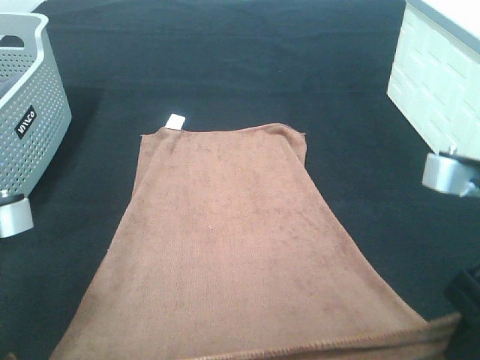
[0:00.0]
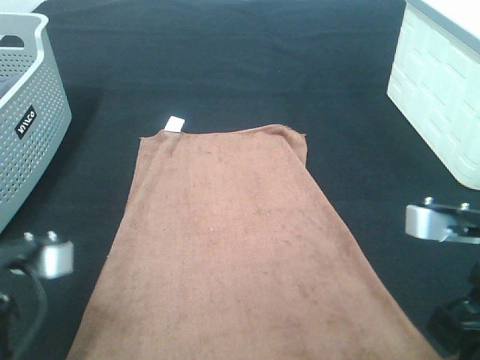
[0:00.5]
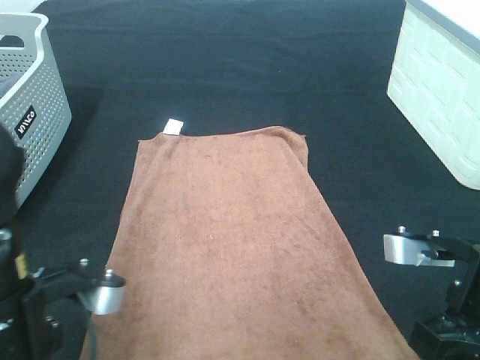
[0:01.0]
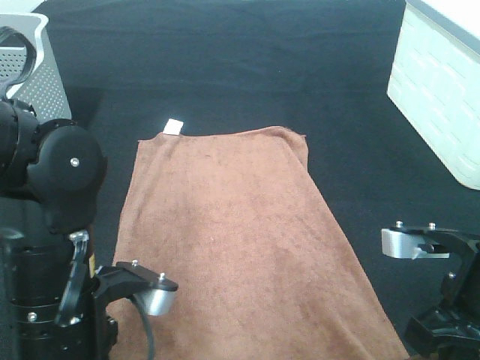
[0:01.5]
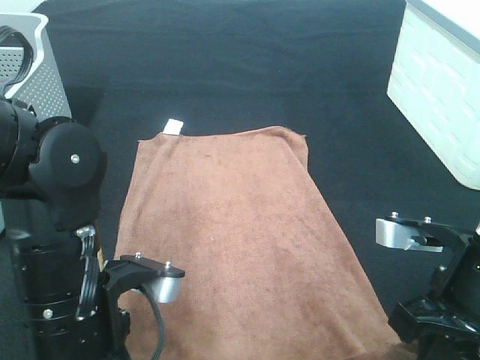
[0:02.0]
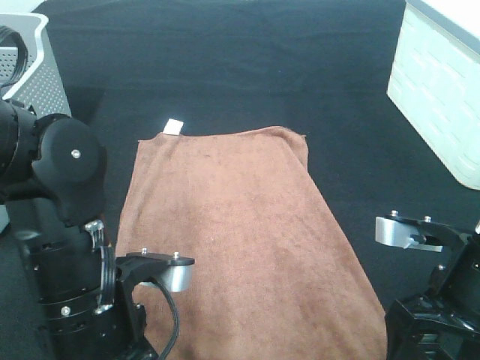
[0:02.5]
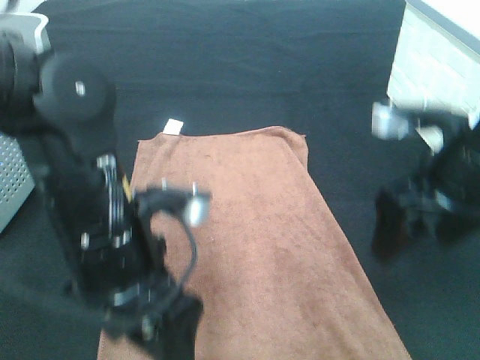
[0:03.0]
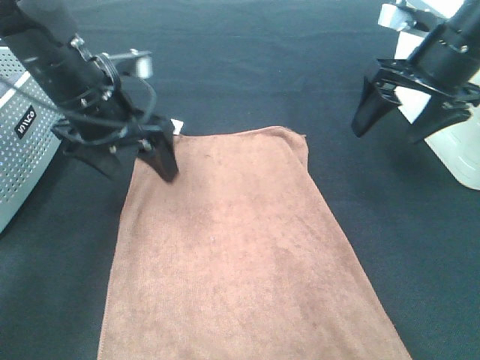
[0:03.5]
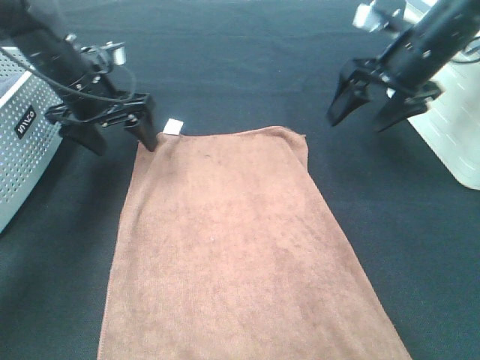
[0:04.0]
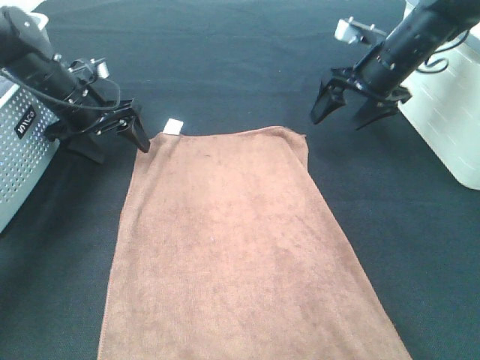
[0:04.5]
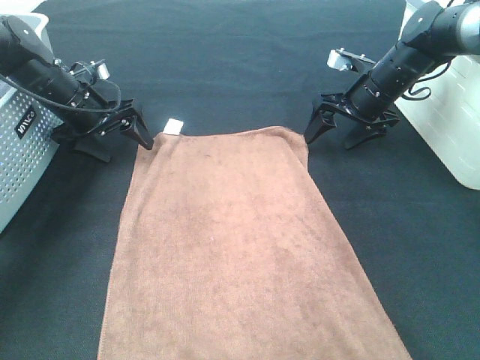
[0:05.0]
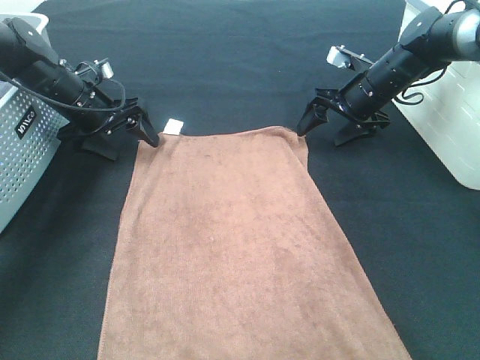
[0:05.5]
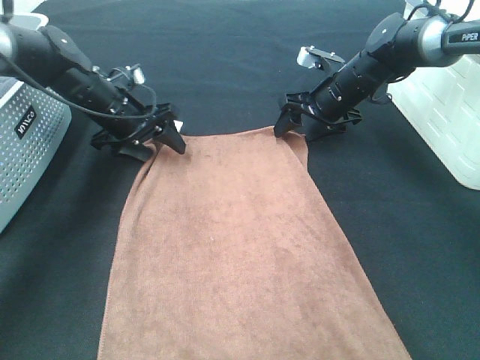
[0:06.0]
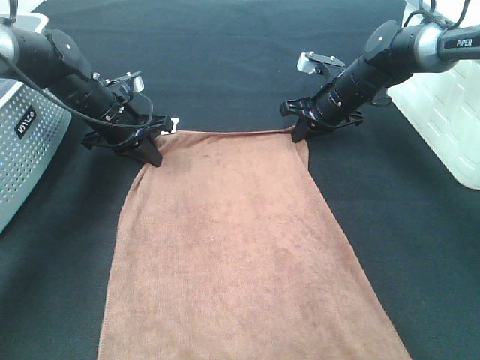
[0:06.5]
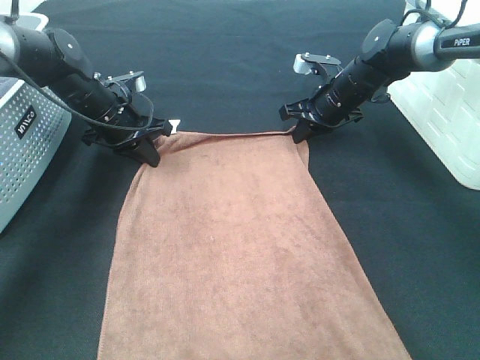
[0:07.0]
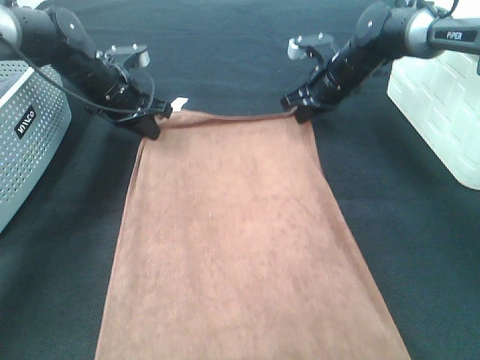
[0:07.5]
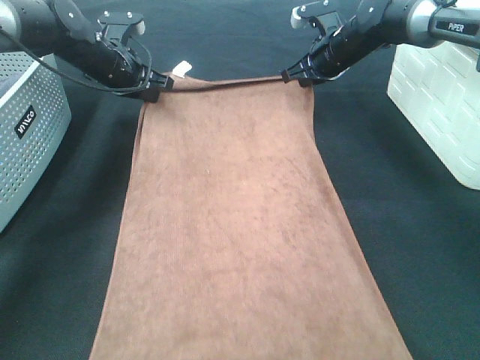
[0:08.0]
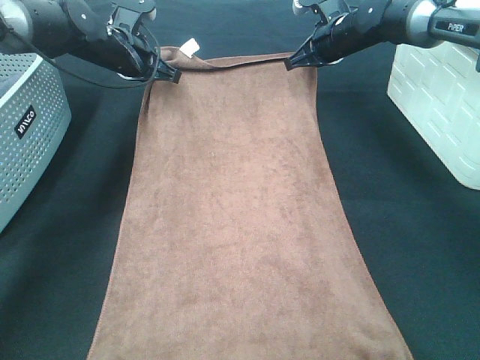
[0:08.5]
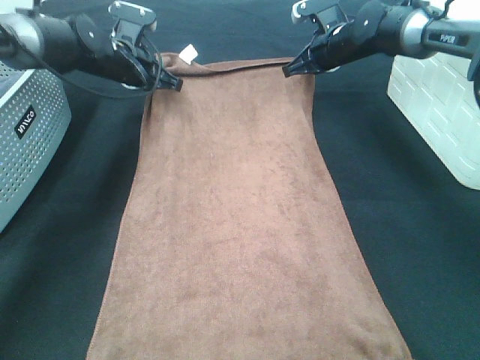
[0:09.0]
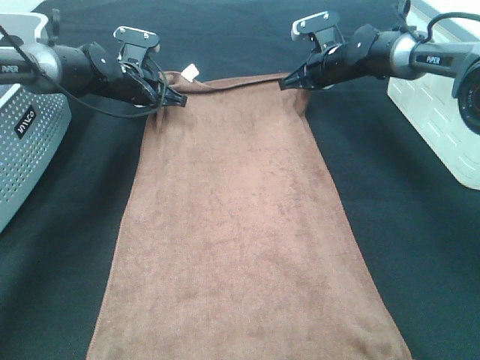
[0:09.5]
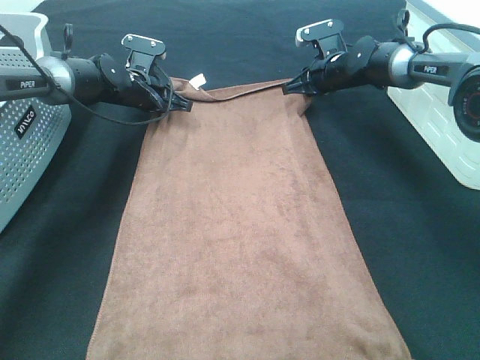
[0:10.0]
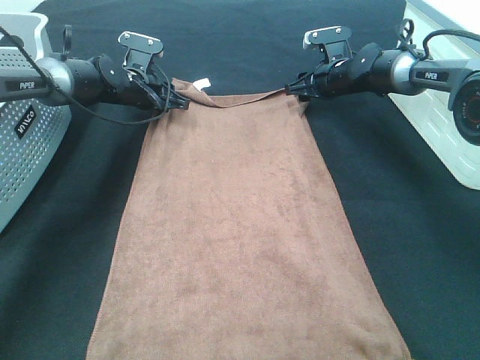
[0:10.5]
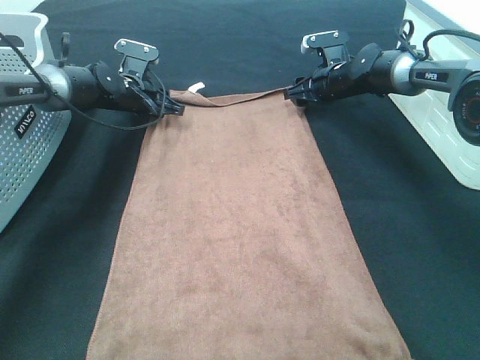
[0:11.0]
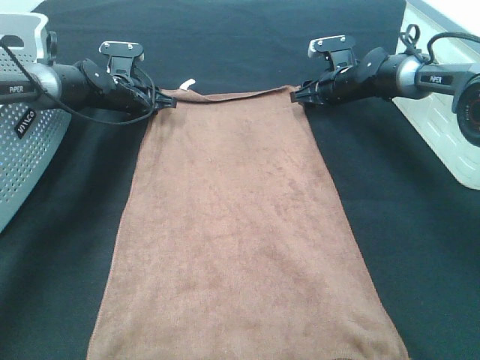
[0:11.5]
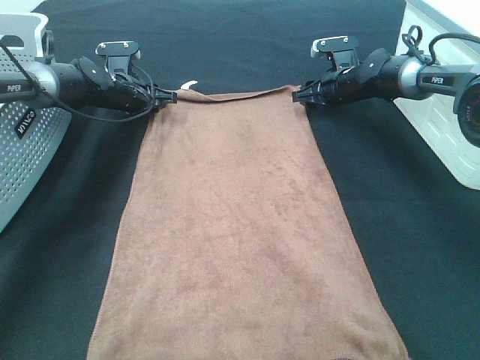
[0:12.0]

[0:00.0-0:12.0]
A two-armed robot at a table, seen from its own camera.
Task of the whole recording: Remove the towel and place it.
Step, 0:00.0 to 0:06.5: Left hand:adjust the brown towel.
Step, 0:00.0 to 0:06.5: Right hand:adjust the brown towel.
0:00.0 to 0:02.0: The right gripper goes roughly 10 cm downward, while the left gripper is displaced to the right and downward by approximately 10 cm.
0:02.0 to 0:04.0: The grippers both shift forward by some 25 cm. The left gripper opens its fingers, while the right gripper opens.
0:04.0 to 0:06.0: The left gripper goes about 5 cm downward. Meanwhile the right gripper heads downward, forward and to the left, covering approximately 15 cm.
0:06.0 to 0:08.0: The left gripper is displaced forward by about 5 cm, and closes. The right gripper is displaced upward and forward by some 10 cm, and closes its fingers.
0:08.0 to 0:10.0: The grippers both shift downward by approximately 5 cm.
0:10.0 to 0:12.0: The grippers move only a little.

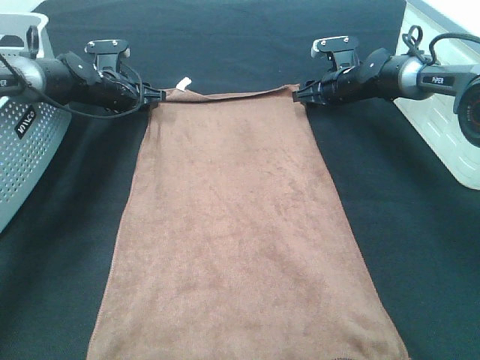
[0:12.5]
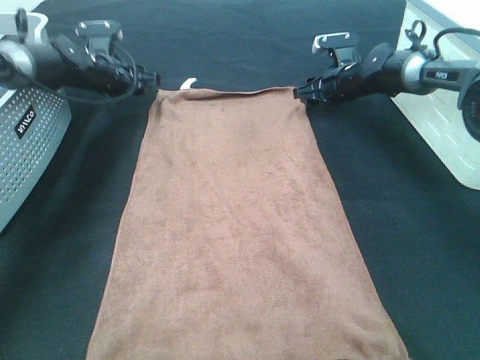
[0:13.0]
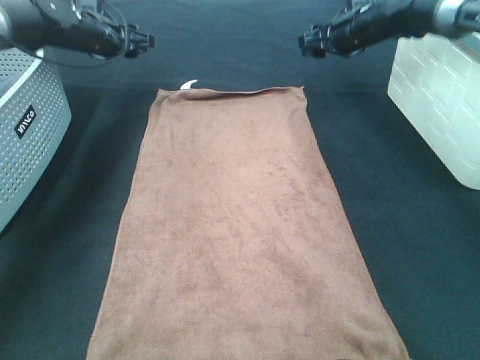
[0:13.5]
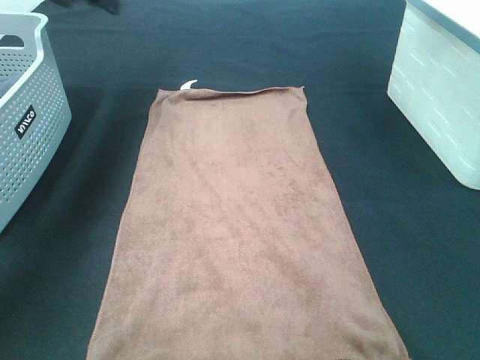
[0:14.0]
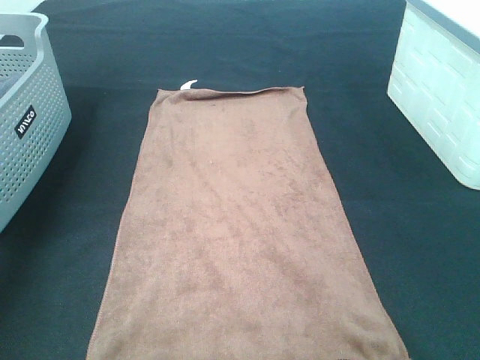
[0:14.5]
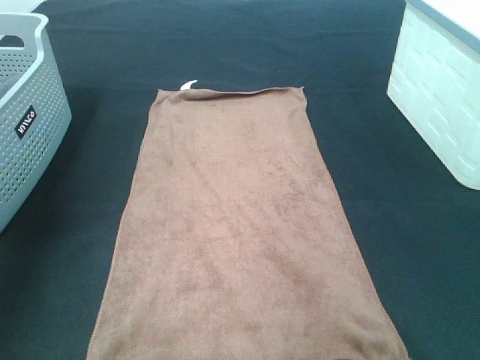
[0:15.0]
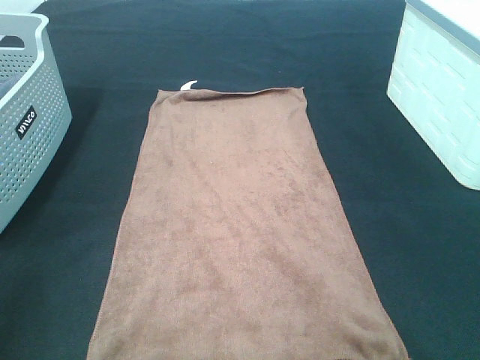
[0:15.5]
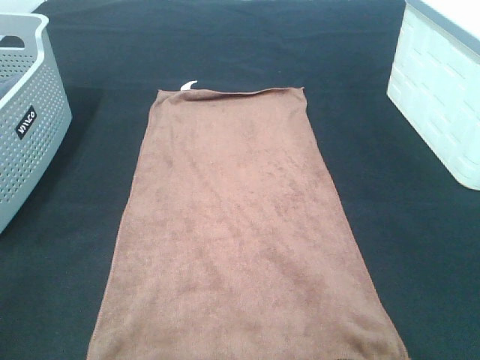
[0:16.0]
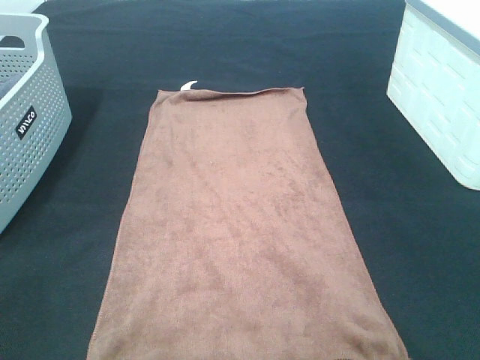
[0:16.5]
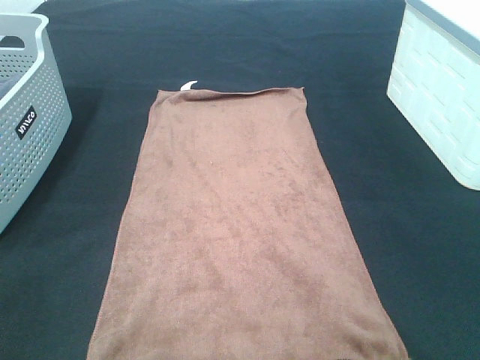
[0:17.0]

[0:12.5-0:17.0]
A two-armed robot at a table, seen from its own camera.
Task of the whole recording: Remove the towel and place it.
0:12.5 to 0:14.5: Both grippers move upward and backward, approximately 40 cm.
0:14.5 to 0:17.0: The grippers both shift backward by about 40 cm.

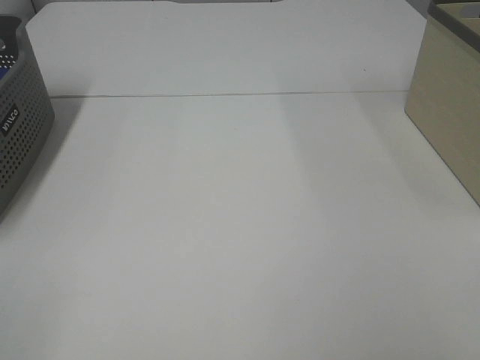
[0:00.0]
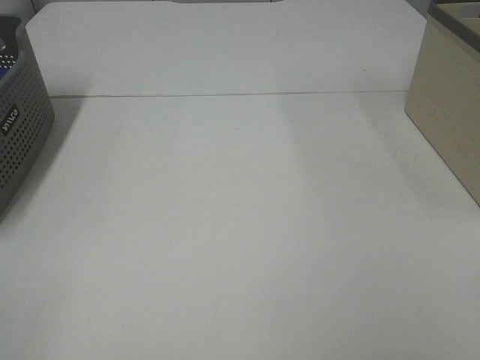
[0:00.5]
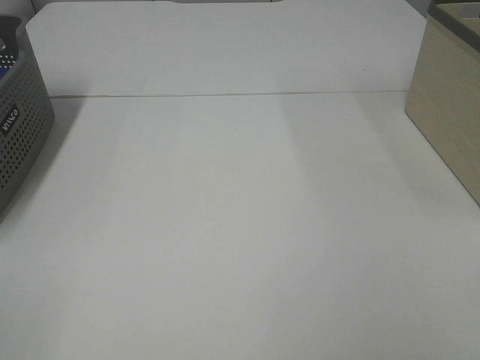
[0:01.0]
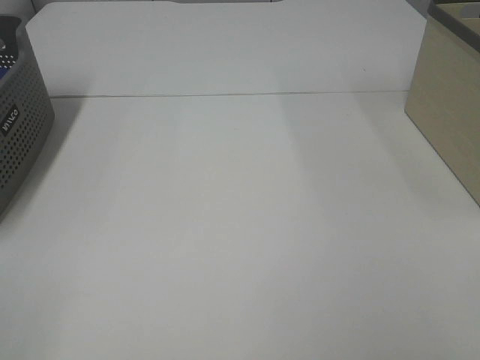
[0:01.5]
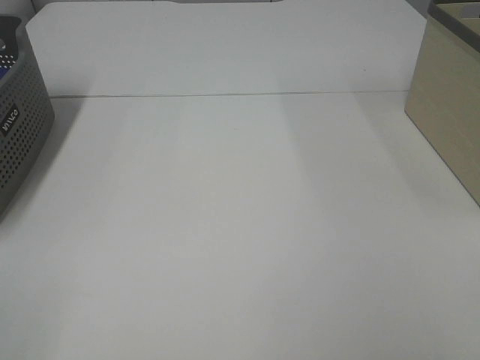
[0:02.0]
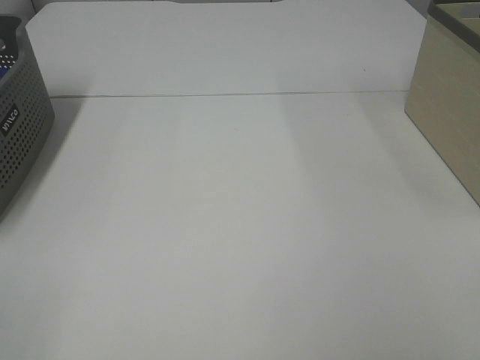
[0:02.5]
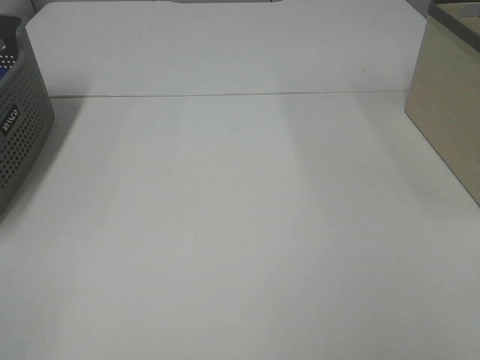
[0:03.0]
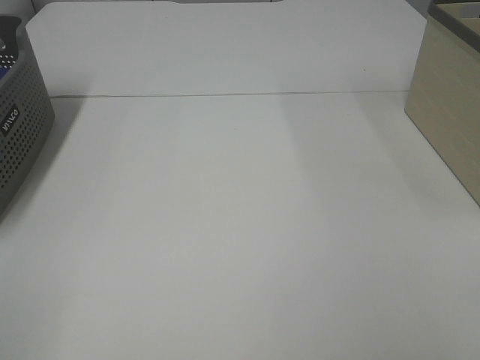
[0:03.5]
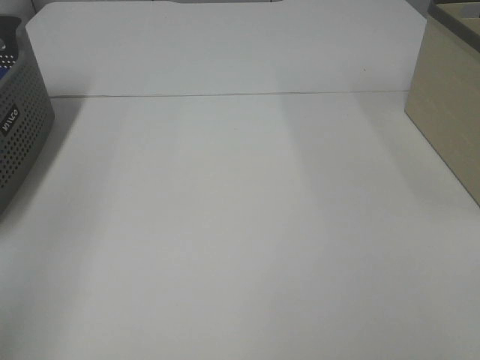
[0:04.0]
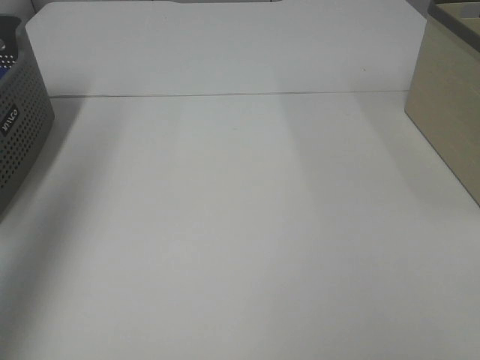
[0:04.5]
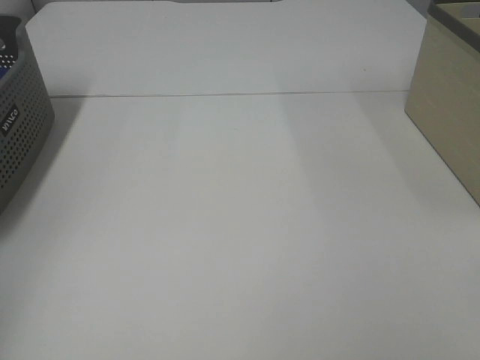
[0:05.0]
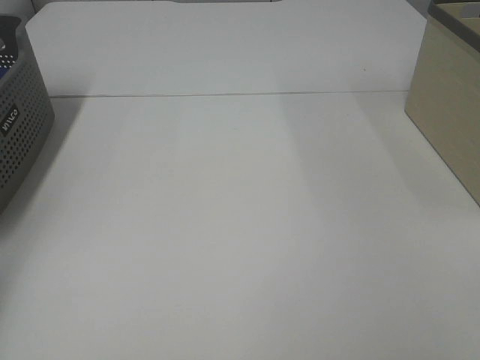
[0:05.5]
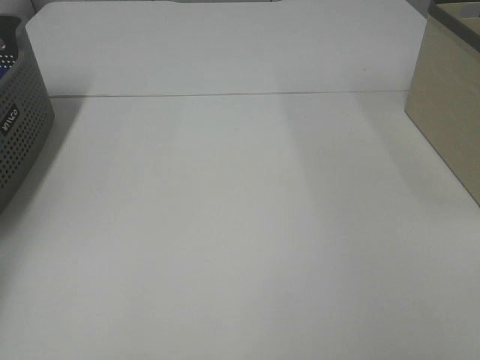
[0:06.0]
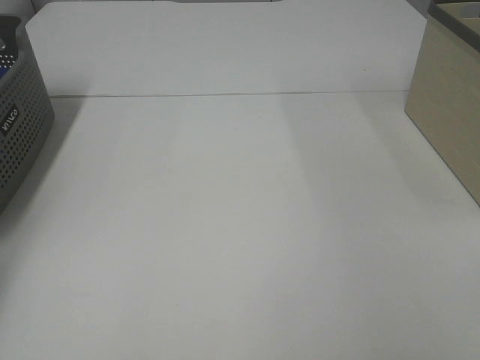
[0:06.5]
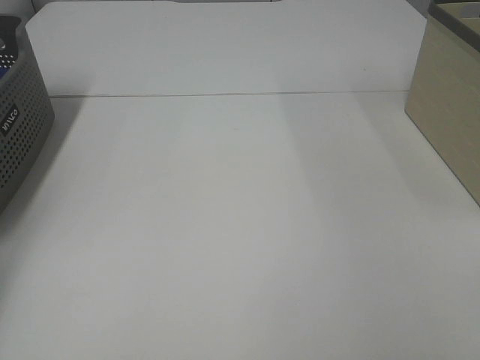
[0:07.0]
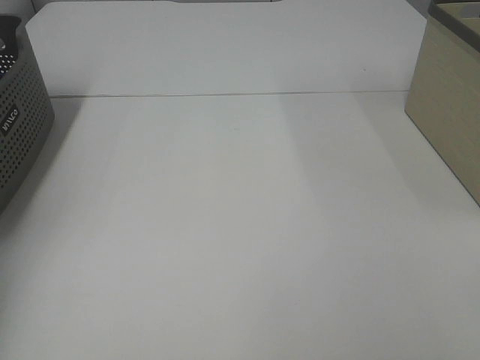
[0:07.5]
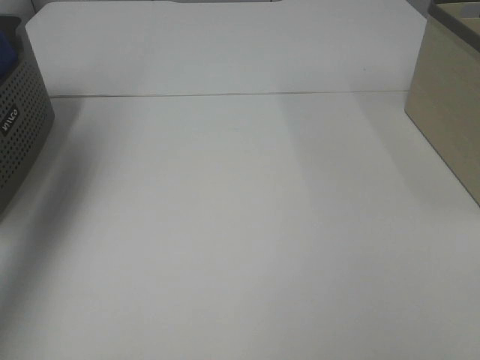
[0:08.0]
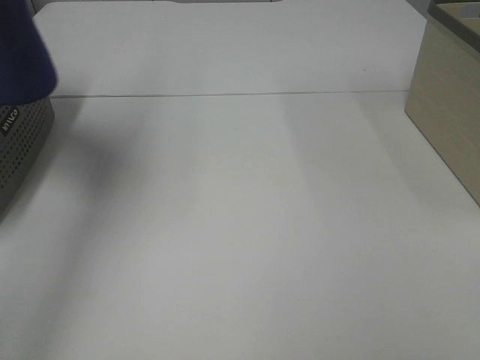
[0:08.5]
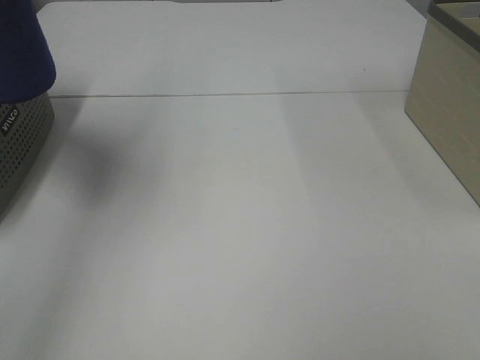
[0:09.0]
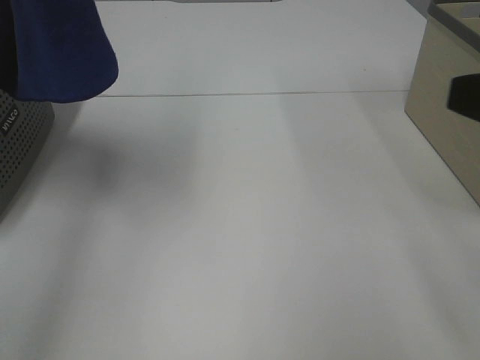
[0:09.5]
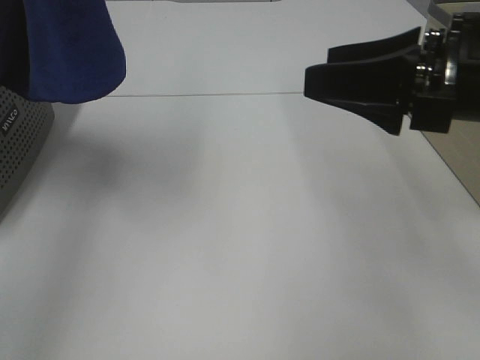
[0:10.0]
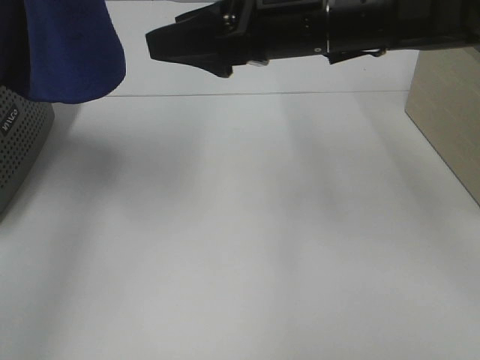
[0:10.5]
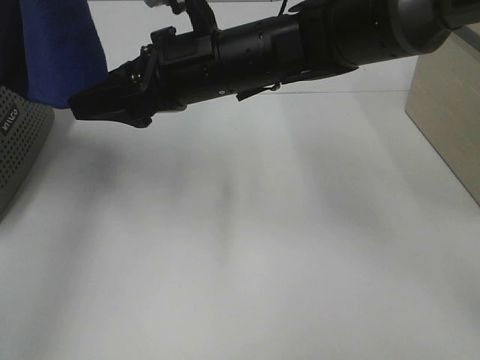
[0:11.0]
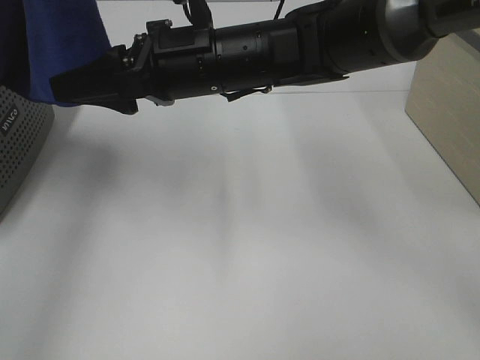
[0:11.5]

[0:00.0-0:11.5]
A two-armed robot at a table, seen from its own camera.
Task of the whole recording: Remove the towel and place it.
0:00.0 to 0:02.0: The two grippers keep their place.
0:04.0 to 0:06.0: The left gripper is displaced forward, downward and to the left by approximately 40 cm.
0:07.5 to 0:09.5: The right gripper moves forward, approximately 15 cm, while the left gripper shifts about 25 cm to the right, upward and backward.
0:09.5 to 0:11.5: The right gripper is displaced to the left and forward by approximately 35 cm.
